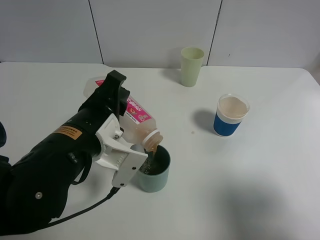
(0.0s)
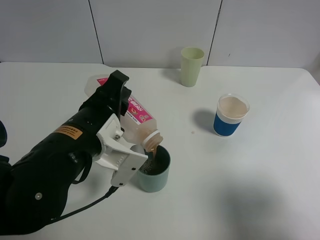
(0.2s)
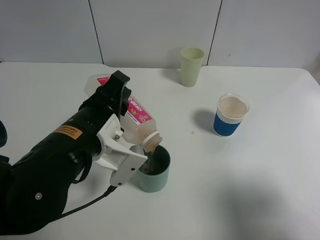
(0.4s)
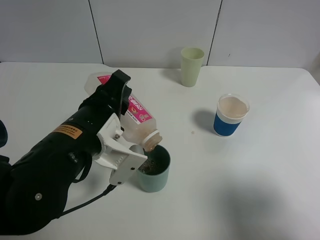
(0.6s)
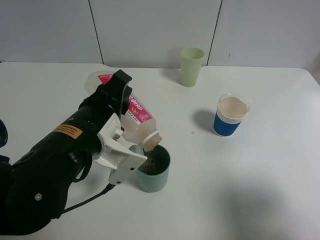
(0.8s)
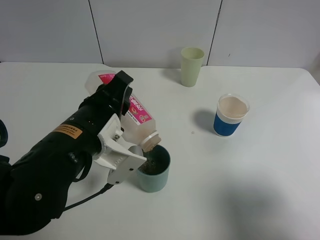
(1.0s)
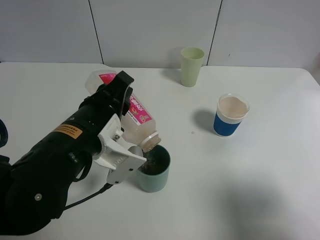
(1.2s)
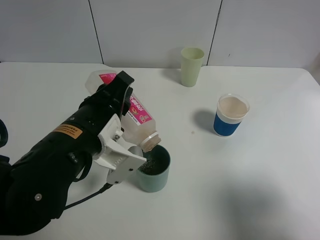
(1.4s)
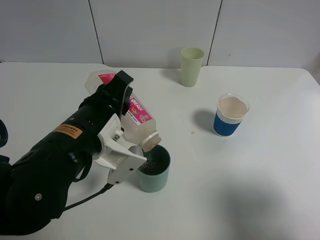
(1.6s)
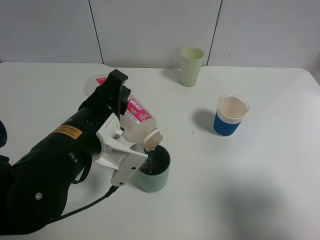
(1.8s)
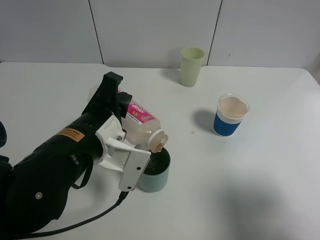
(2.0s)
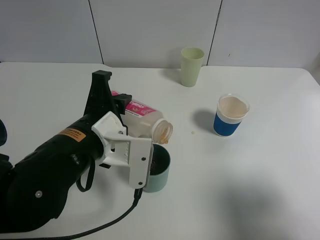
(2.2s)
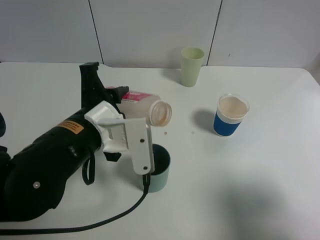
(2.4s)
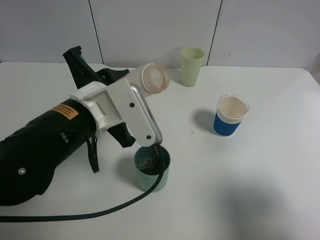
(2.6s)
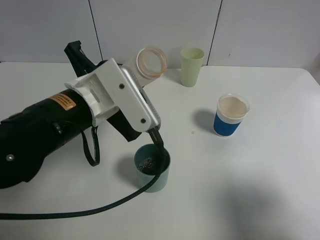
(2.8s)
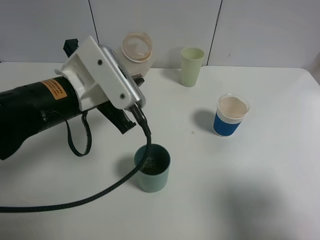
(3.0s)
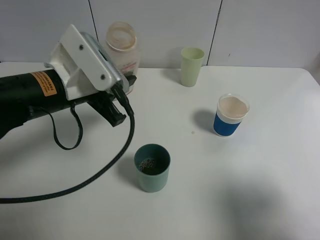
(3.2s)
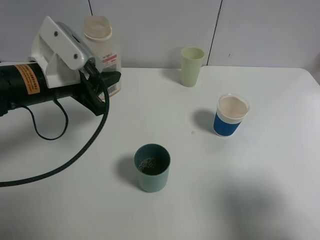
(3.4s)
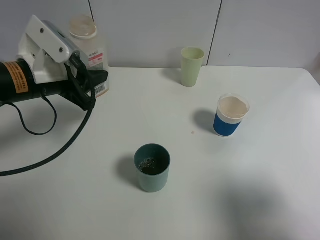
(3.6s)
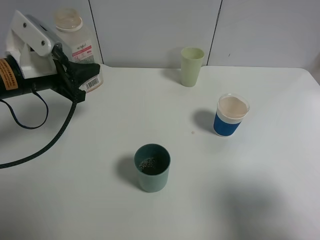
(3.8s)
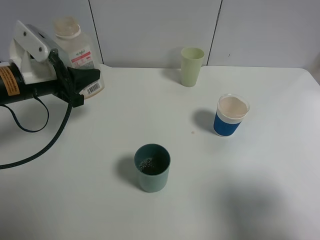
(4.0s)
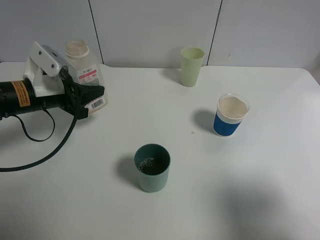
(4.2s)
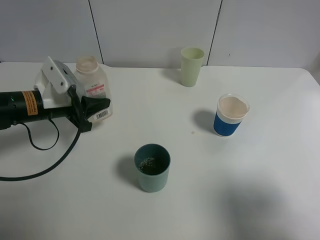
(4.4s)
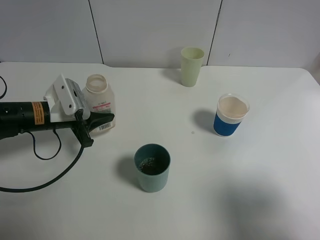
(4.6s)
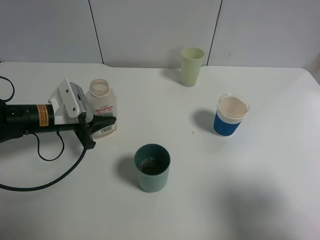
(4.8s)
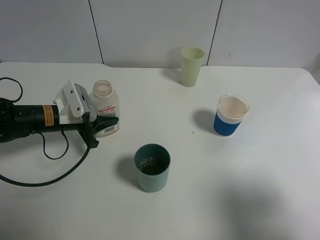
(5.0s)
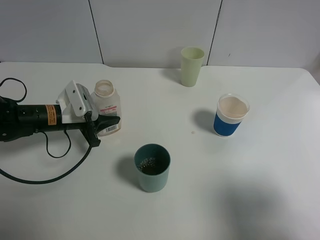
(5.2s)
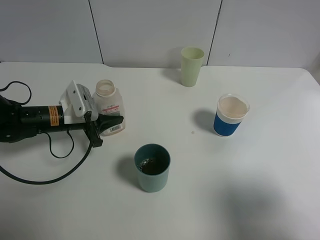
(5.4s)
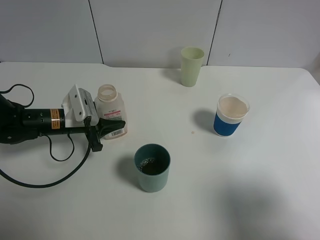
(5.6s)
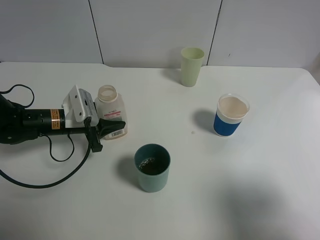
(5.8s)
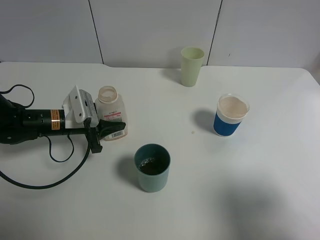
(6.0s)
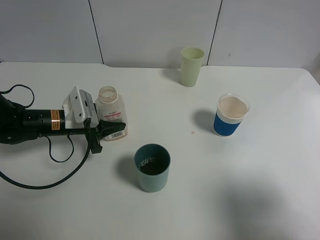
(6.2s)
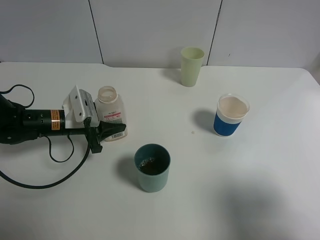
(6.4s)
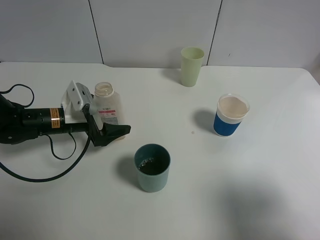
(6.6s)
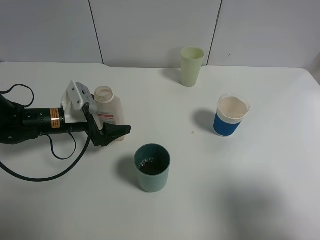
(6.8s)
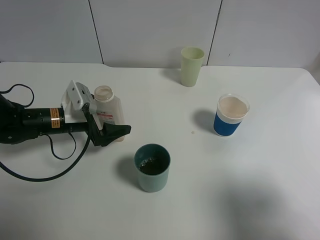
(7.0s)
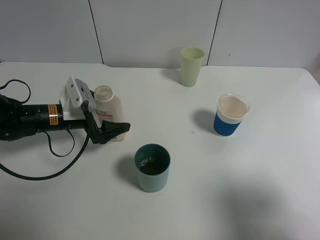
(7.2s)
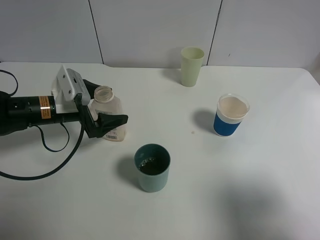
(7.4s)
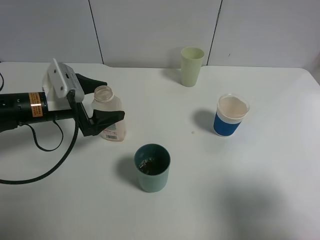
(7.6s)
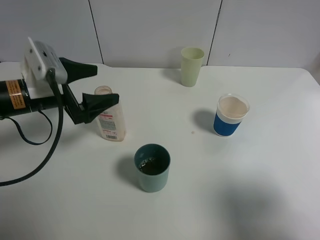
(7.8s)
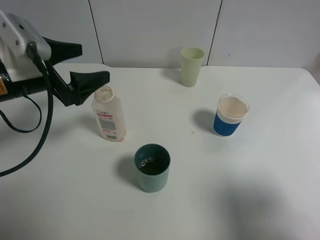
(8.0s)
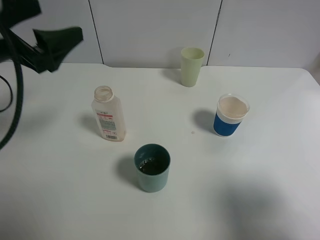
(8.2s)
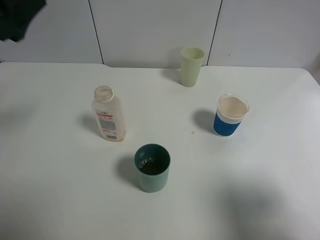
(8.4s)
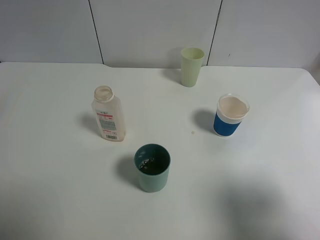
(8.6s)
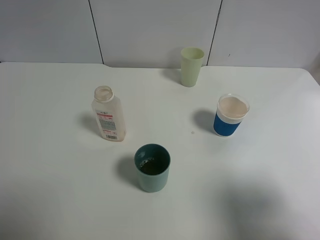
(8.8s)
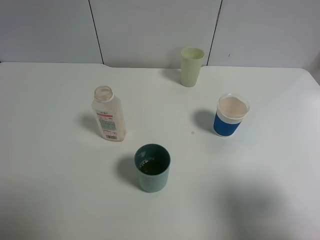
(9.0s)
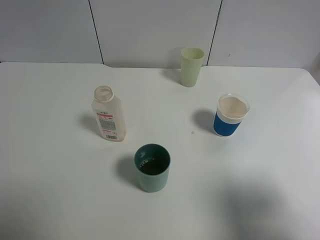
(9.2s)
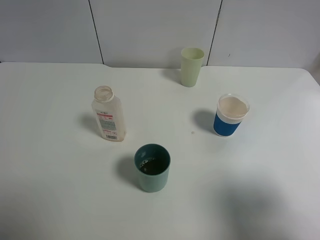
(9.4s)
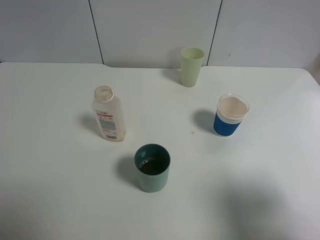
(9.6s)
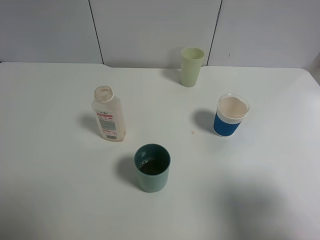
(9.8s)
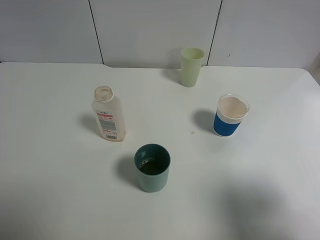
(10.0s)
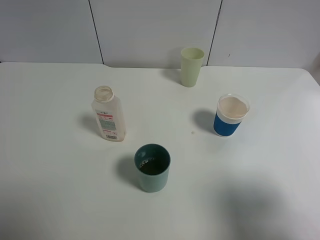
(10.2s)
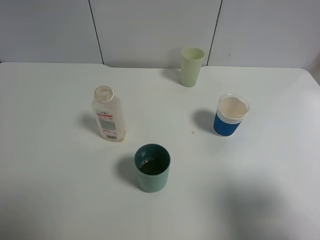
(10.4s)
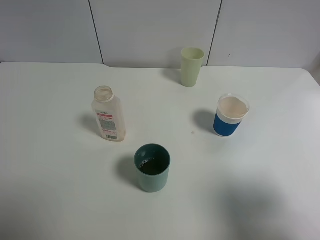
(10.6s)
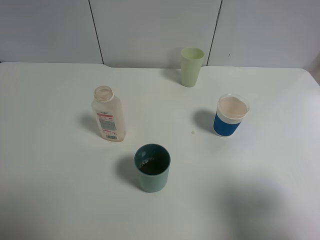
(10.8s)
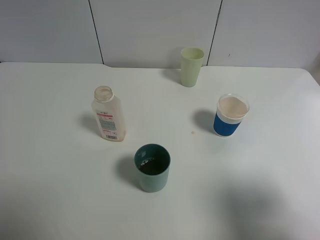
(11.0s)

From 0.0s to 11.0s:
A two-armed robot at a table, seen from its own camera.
Task of the whole recording: use a gripper to hold the bottle of the drink and pour it into a random cup.
Step, from 0.0s to 2.0s: Pour the cranberry juice into the cyan cup with the left gripper.
Step, from 2.2s to 6.8s: Place the cranberry juice bottle on the table with the left gripper.
From 0.0s to 1.6s: The grippers make only small movements.
From 1.6s to 3.2s: The left gripper is displaced forward by some 5 cm.
From 3.2s to 4.8s: The left gripper goes approximately 15 cm downward, to the left and forward.
From 4.8s to 6.2s: The grippers move only a little.
From 6.2s to 7.8s: The left gripper is displaced upward by approximately 10 cm, and opens.
From 7.8s to 9.4s: The left gripper heads backward, upward and to the left, covering about 30 cm.

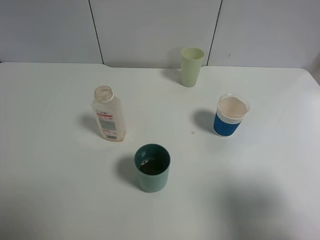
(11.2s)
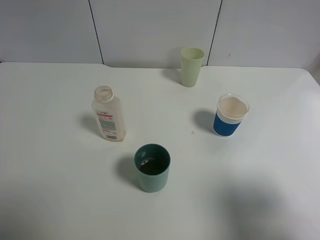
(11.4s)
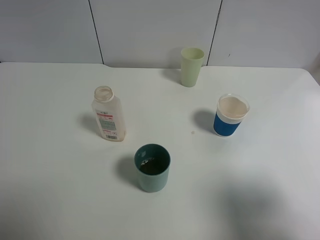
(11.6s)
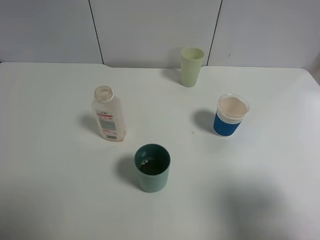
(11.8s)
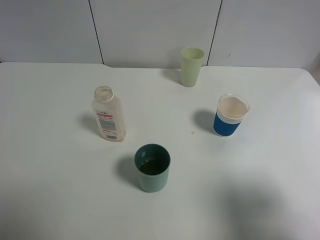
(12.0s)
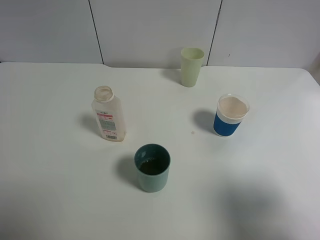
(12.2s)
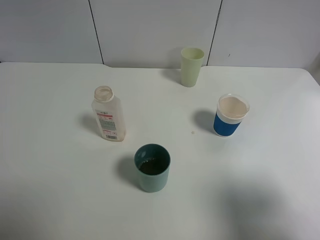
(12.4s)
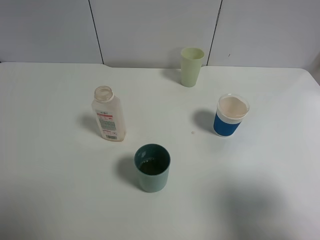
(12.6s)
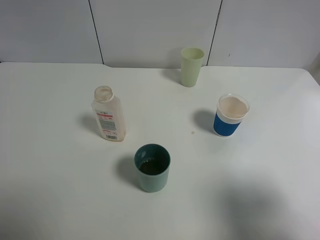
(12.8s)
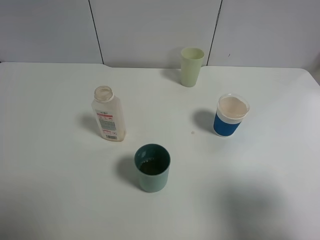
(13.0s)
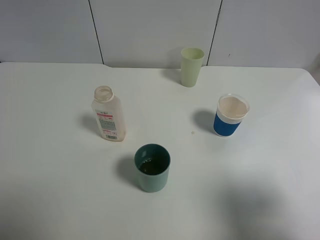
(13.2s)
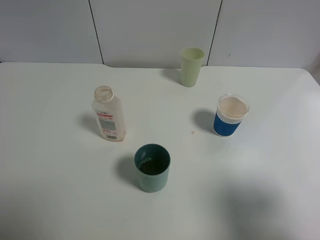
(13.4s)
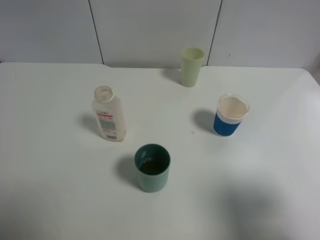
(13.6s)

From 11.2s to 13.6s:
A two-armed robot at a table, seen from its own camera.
Task of the whole recording: use a gripper to hold the bottle of the drink and pour it into a random cup.
From 11.2s to 13.6s: The two grippers keep their place.

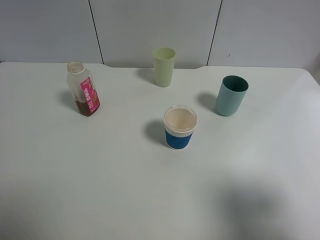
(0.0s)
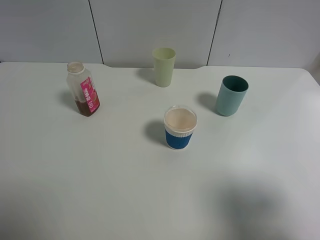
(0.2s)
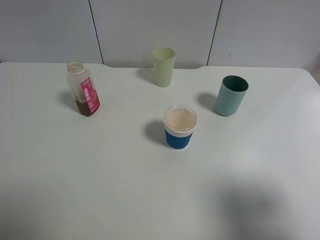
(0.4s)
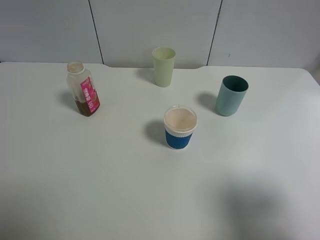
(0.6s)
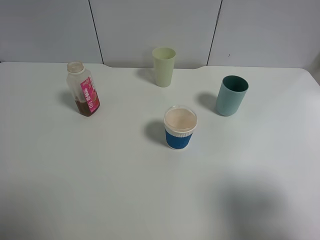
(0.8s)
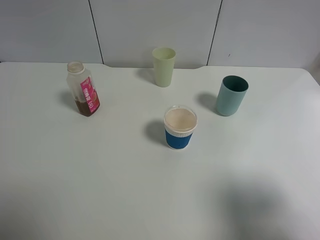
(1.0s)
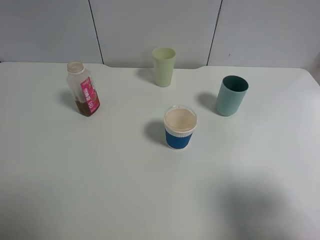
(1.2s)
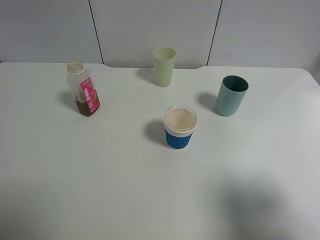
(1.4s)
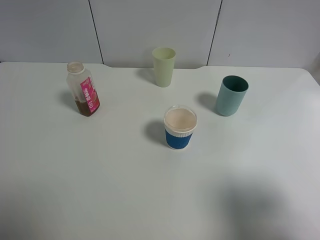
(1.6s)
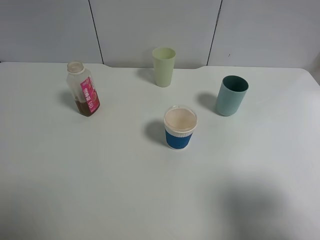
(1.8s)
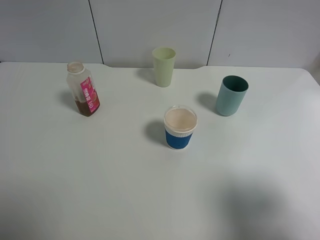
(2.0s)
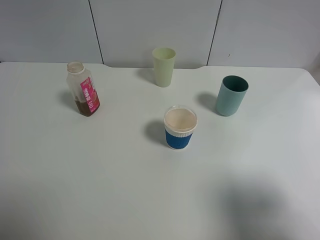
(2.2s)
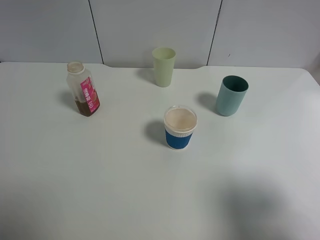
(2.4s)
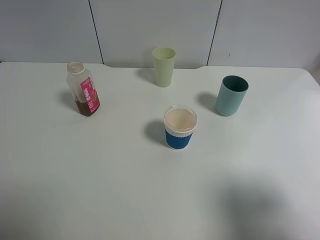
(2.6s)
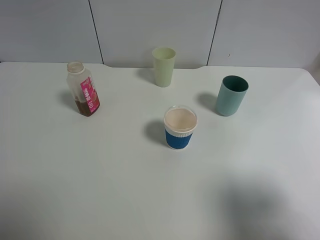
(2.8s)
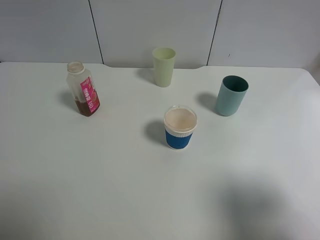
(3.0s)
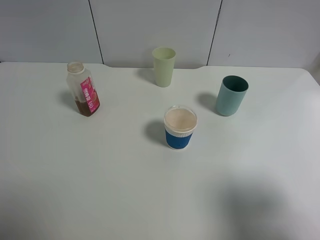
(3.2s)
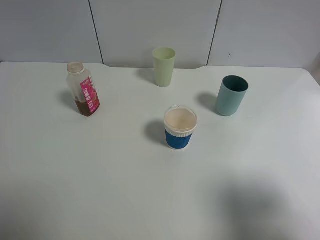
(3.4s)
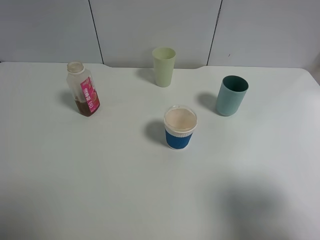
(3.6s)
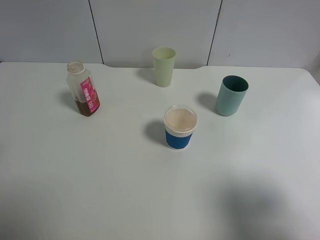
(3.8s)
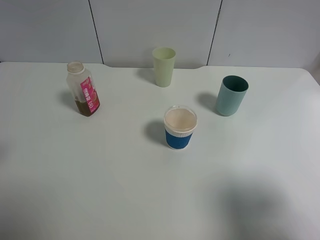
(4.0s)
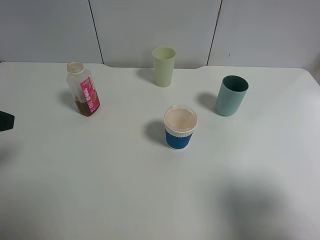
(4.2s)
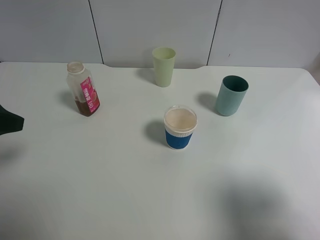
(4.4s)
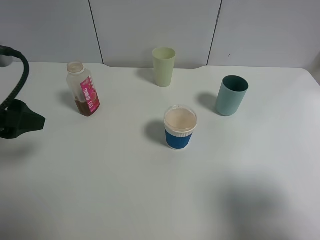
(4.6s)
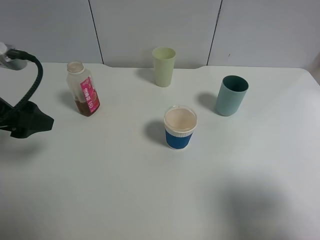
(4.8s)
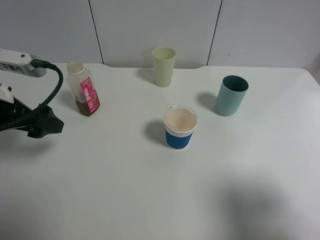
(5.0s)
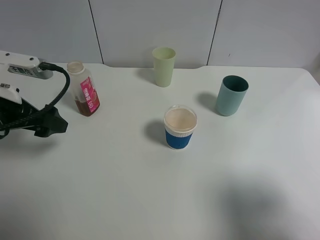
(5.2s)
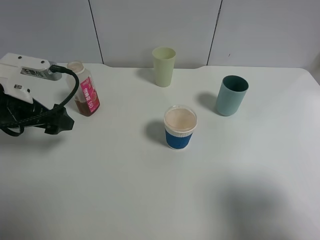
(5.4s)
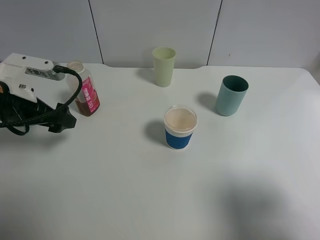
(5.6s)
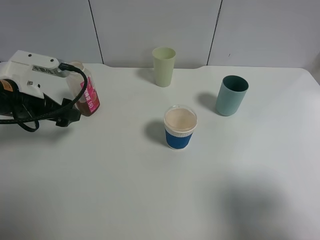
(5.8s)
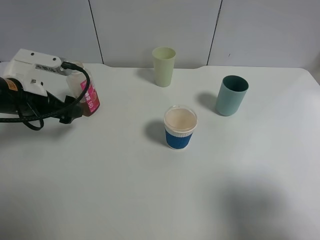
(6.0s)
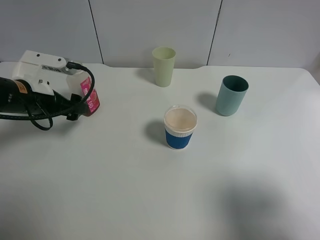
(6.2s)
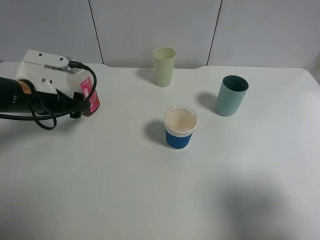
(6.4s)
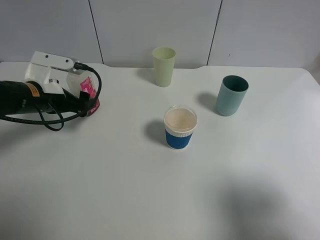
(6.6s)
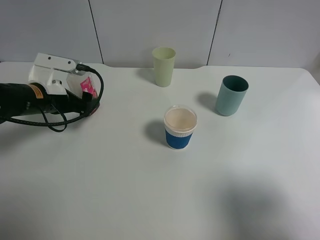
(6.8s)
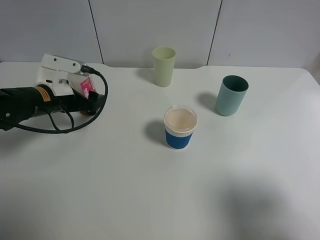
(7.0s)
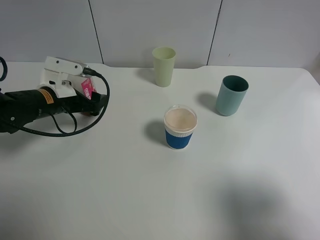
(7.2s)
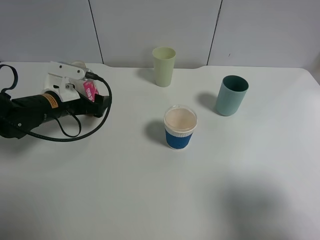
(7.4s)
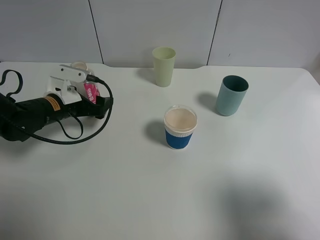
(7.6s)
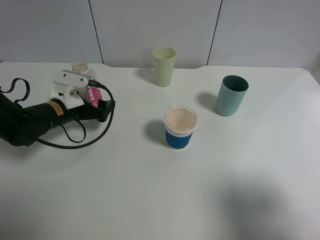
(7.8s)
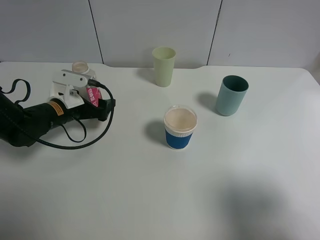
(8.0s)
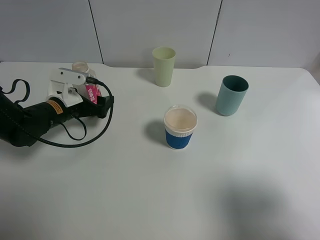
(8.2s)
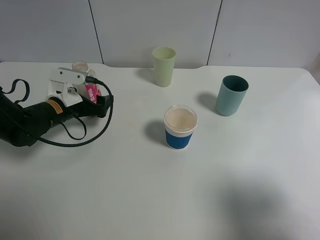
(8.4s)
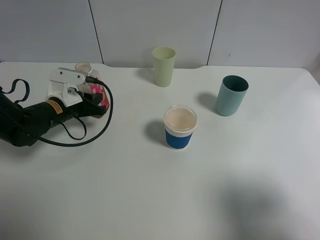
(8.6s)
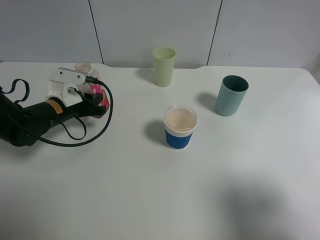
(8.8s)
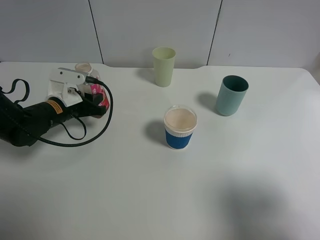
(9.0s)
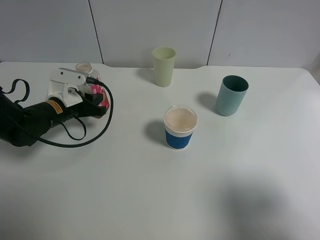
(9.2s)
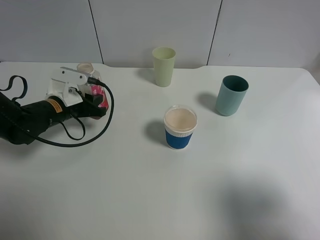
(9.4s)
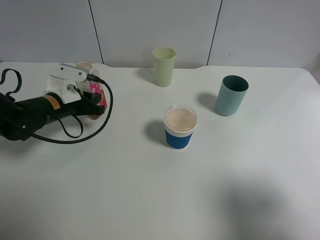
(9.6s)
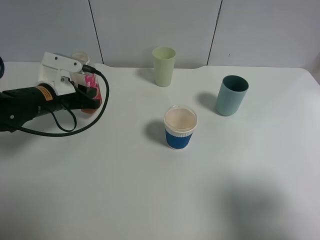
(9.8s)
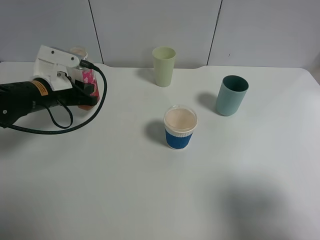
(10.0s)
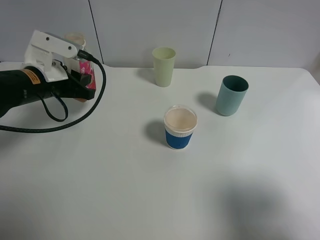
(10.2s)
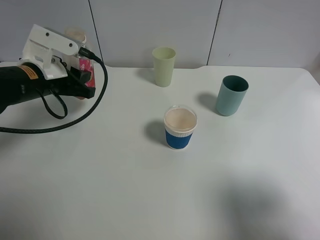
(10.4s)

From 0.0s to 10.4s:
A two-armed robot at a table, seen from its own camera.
Task of the whole recording: use a gripper to hold the bottle of the drink and pour it into a random cup.
Step, from 0.0s to 8.6s: Grasp the cranberry juice bottle with the left gripper.
From 0.0s to 3.0s: Neither gripper changes place.
From 3.0s to 4.4s: The left gripper is displaced forward by about 15 cm.
From 4.4s to 6.0s: The left gripper travels forward and downward by about 15 cm.
From 6.0s to 7.4s: The left gripper moves downward, approximately 5 cm.
From 7.4s to 9.0s: The left gripper closes.
From 9.0s to 10.4s: The left gripper shifts about 10 cm upward.
